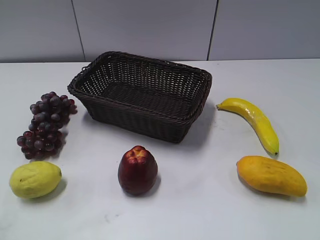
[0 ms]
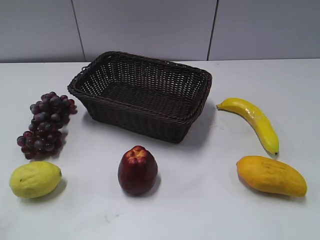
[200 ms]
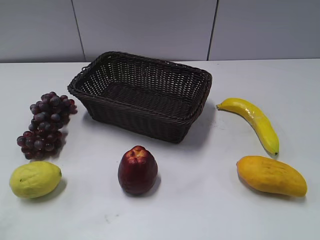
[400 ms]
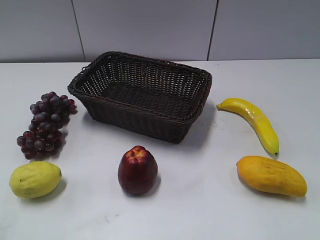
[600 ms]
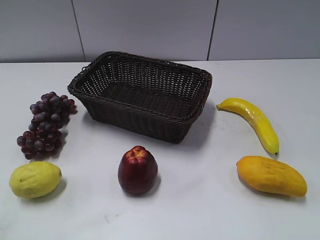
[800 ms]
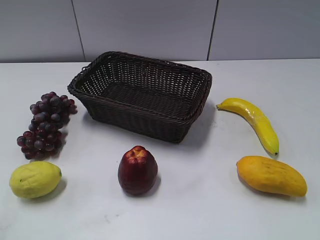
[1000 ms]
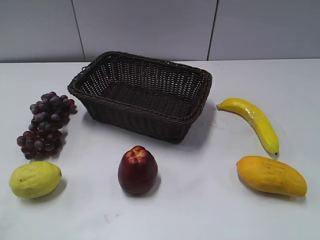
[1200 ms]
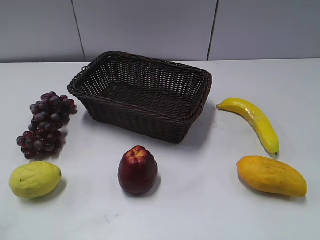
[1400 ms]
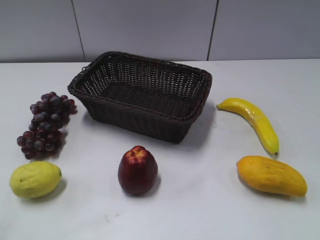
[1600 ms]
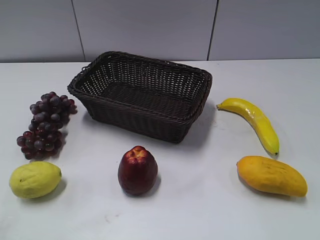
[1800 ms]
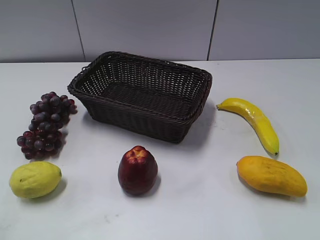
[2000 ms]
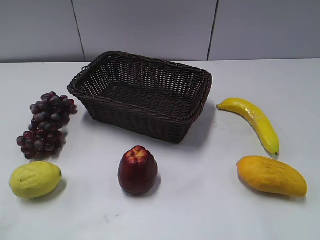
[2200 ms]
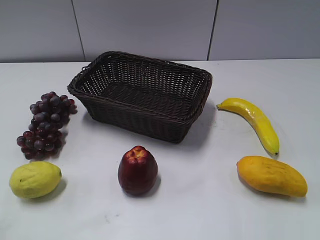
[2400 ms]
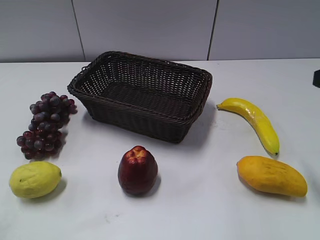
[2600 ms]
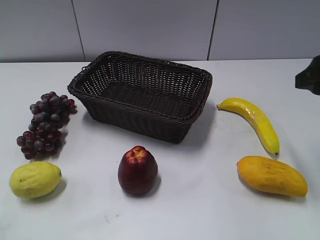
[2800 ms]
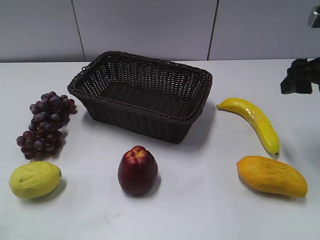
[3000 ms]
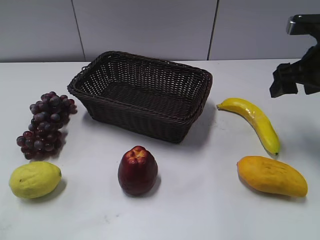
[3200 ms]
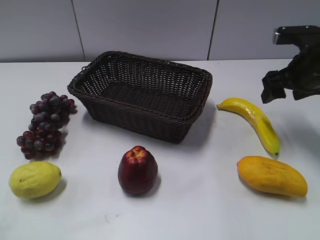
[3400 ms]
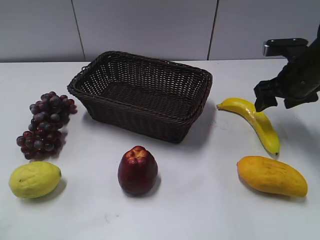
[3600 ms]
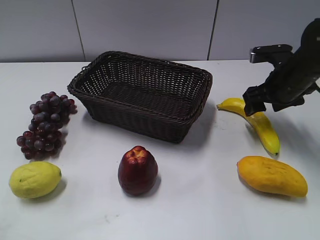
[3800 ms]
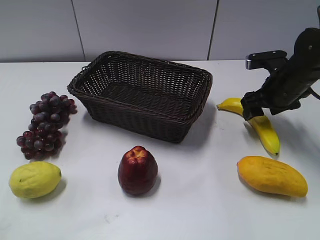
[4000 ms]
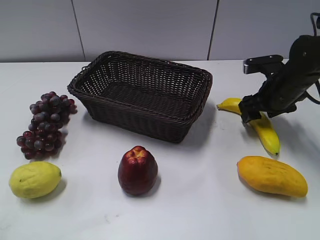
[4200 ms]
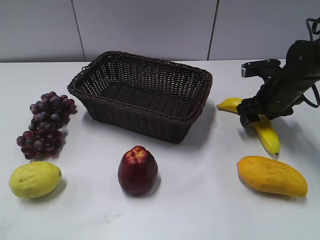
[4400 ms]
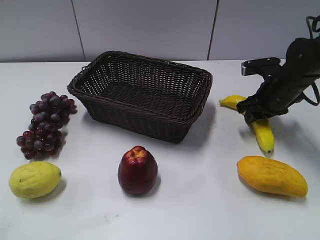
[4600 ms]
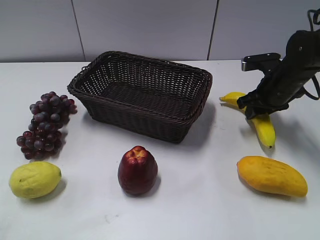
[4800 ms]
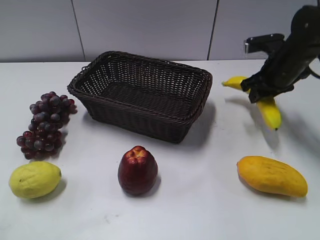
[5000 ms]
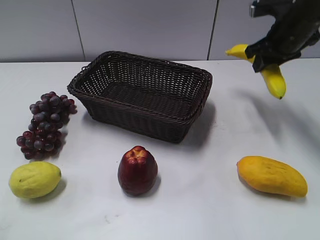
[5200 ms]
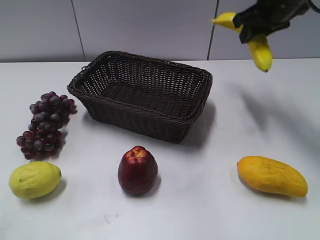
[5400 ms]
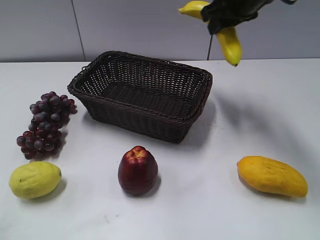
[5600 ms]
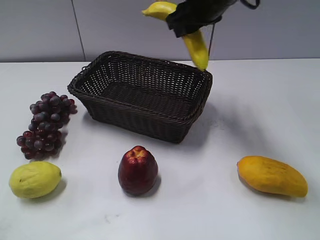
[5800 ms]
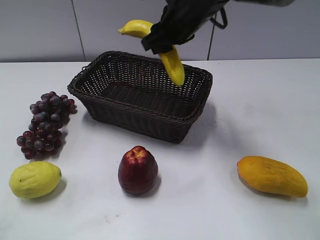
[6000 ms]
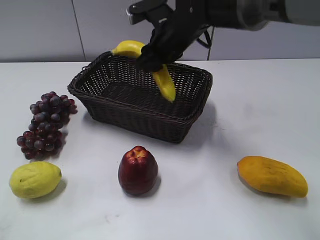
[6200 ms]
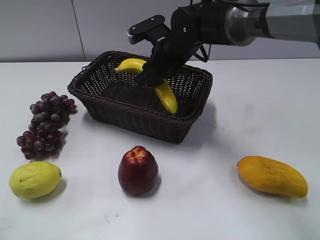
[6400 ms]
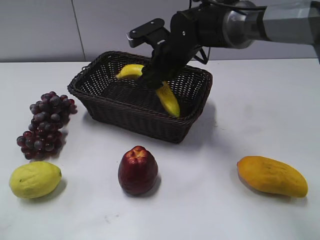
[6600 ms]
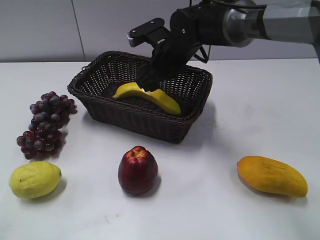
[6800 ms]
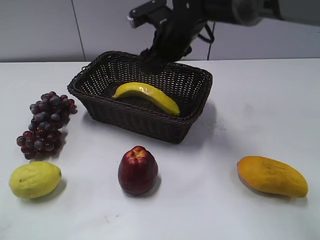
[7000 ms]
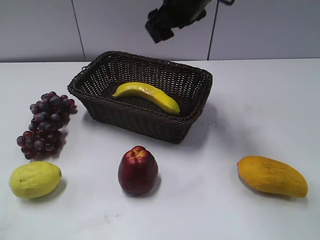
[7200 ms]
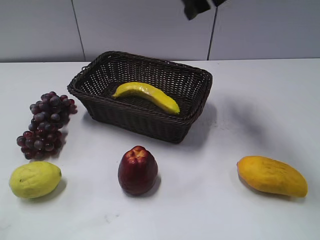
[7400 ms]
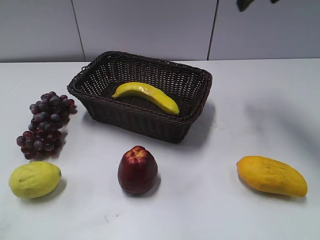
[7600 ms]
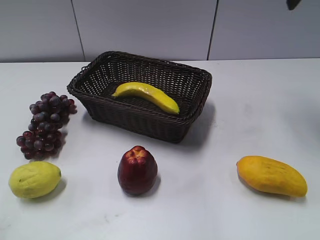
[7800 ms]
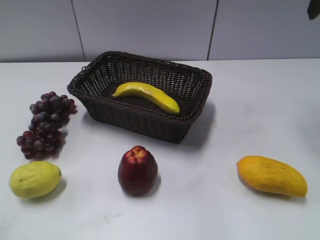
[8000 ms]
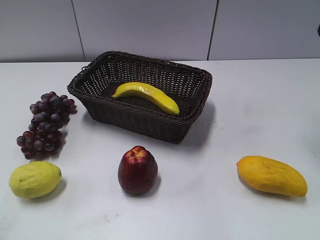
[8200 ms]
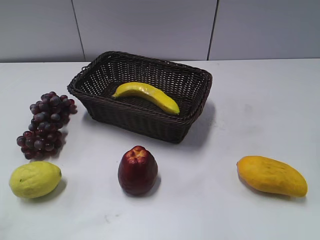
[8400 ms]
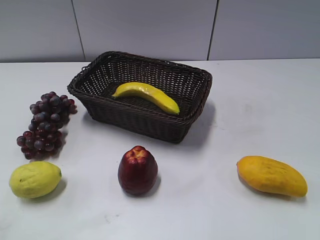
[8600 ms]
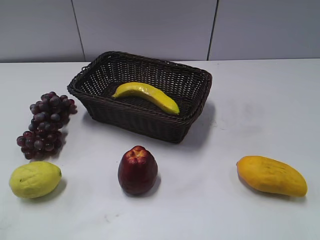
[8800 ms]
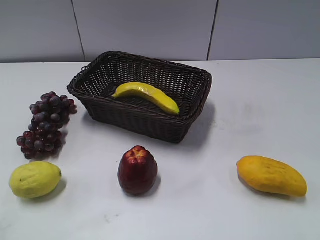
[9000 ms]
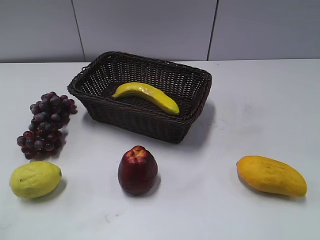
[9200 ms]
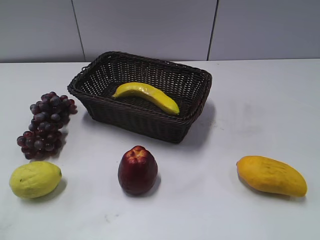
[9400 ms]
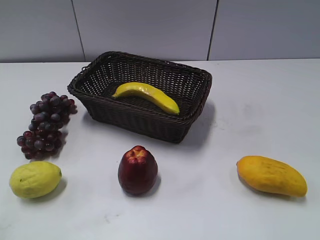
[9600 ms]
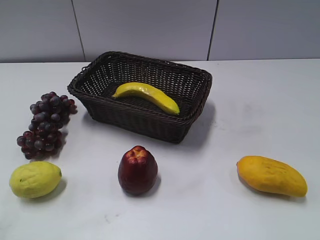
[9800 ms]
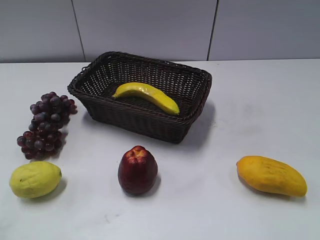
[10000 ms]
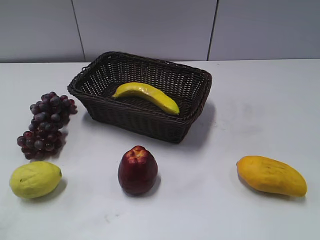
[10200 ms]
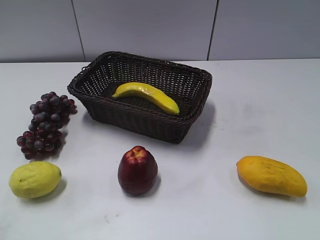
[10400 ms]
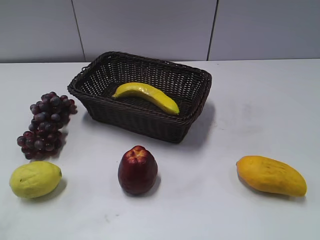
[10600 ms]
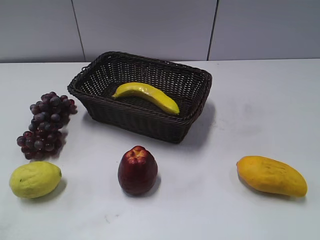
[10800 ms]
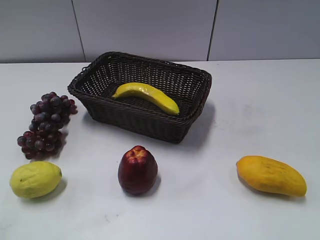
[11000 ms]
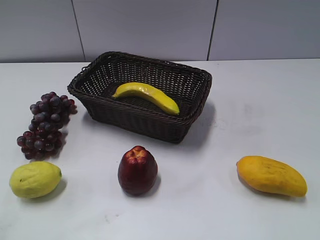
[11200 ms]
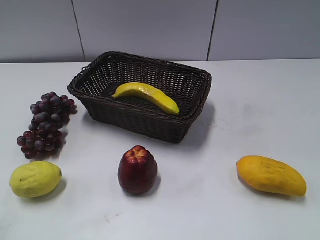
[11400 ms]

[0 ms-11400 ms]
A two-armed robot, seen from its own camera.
Step, 2600 ms to 4800 ms: Grasp the banana with right gripper.
Step, 5000 ms to 6800 ms: Place the banana in the basket with right gripper.
1400 ms to 2800 ms: The right gripper moves forward, approximately 25 cm.
2800 ms to 4200 ms: The right gripper shifts some 20 cm downward and forward.
4200 ms to 5600 ms: The right gripper goes roughly 20 cm upward and to the left, and closes.
5600 ms to 7200 ms: The right gripper heads to the left, covering approximately 10 cm, reaches approximately 15 cm downward, then returns, and opens.
7200 ms to 8600 ms: The right gripper travels to the right and backward by some 30 cm.
